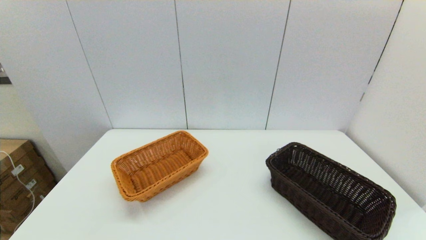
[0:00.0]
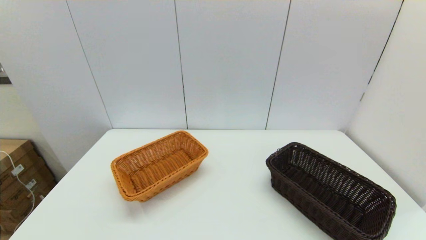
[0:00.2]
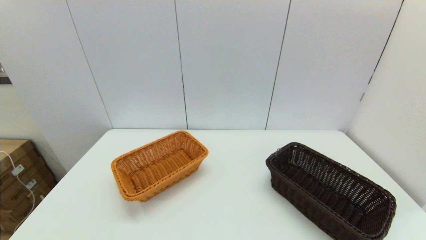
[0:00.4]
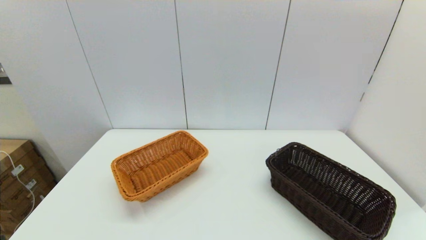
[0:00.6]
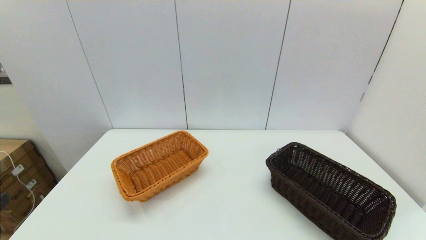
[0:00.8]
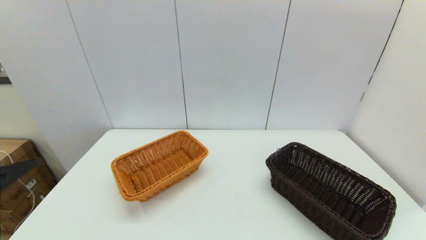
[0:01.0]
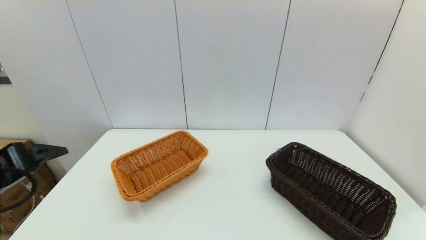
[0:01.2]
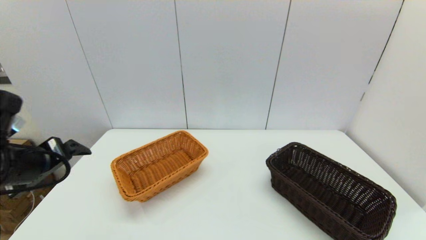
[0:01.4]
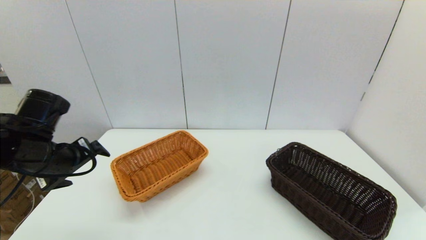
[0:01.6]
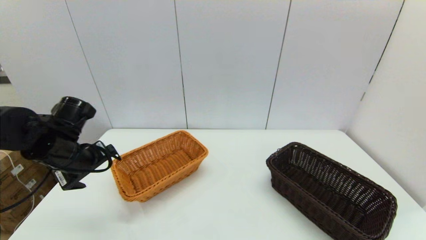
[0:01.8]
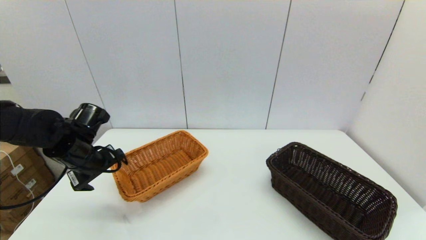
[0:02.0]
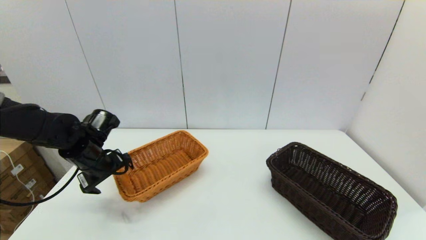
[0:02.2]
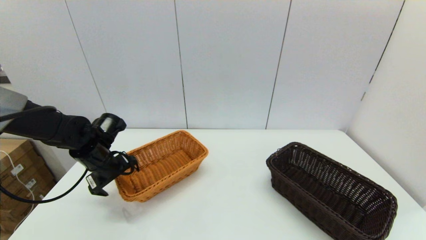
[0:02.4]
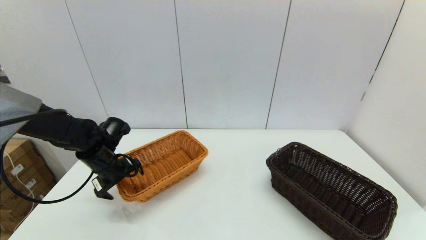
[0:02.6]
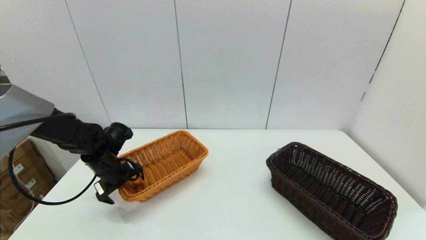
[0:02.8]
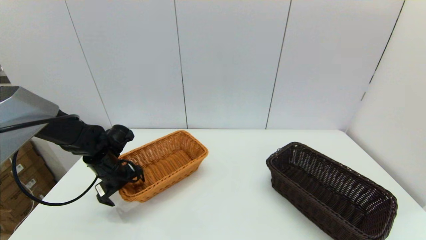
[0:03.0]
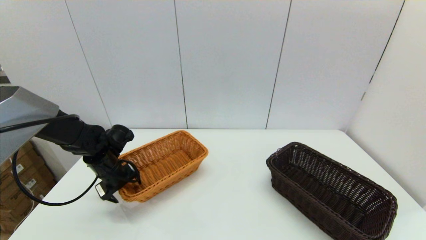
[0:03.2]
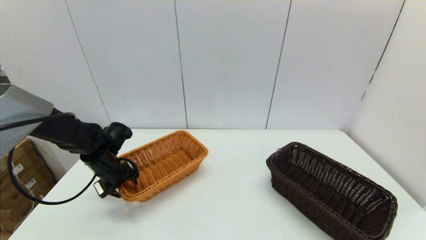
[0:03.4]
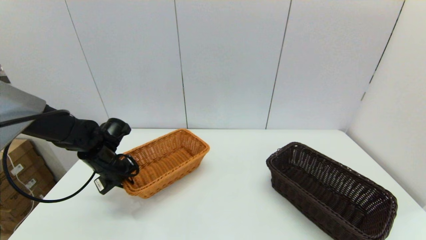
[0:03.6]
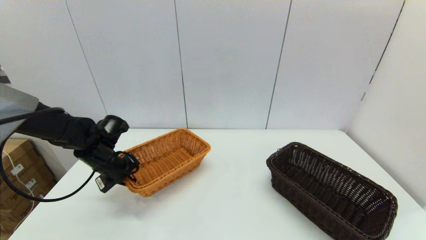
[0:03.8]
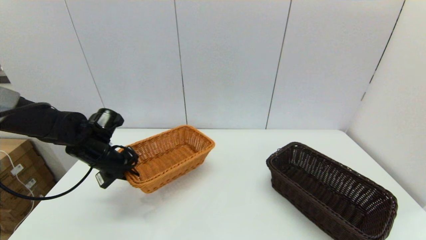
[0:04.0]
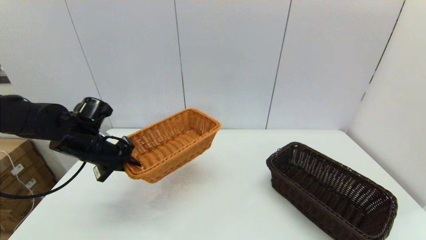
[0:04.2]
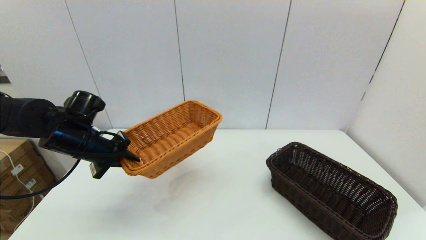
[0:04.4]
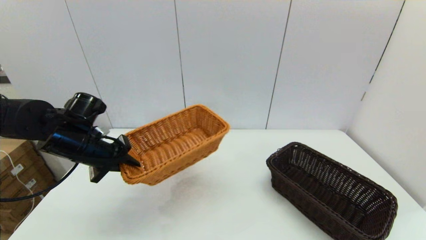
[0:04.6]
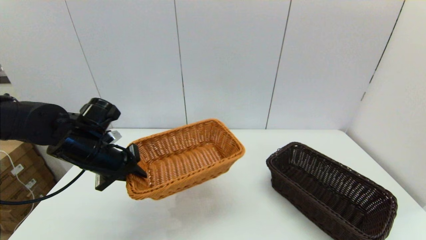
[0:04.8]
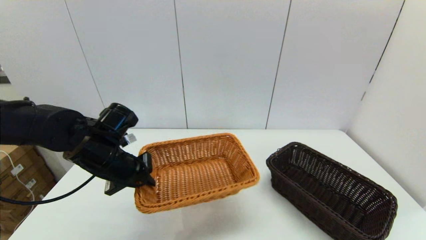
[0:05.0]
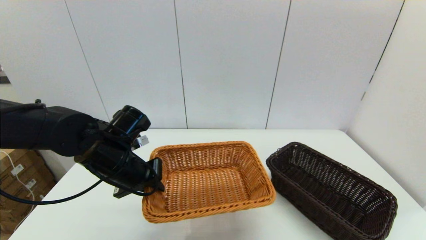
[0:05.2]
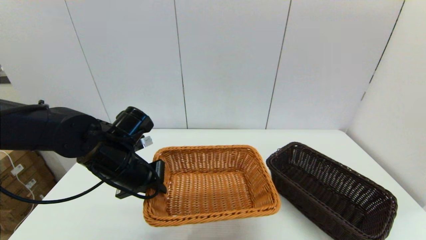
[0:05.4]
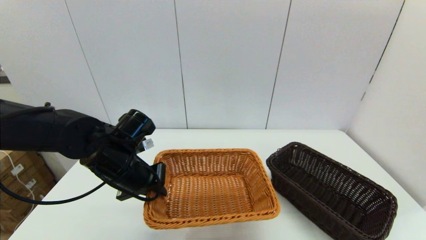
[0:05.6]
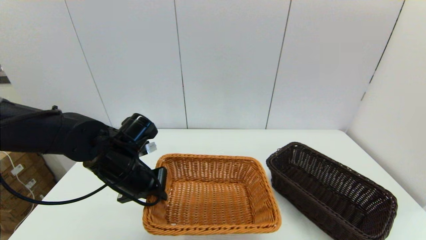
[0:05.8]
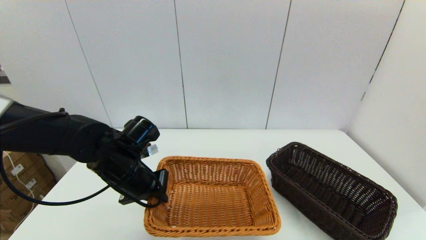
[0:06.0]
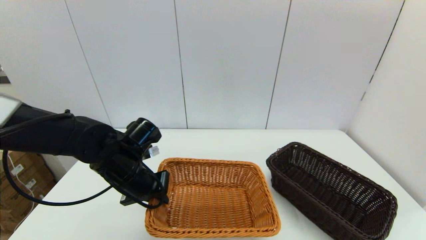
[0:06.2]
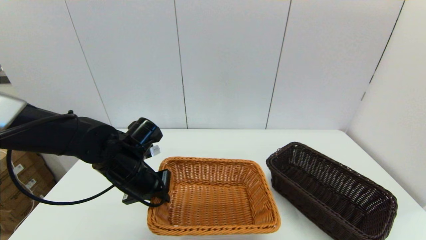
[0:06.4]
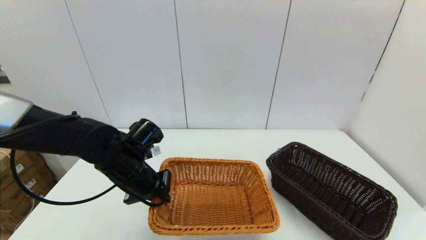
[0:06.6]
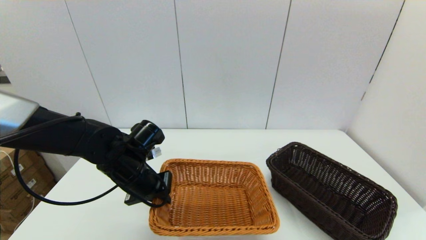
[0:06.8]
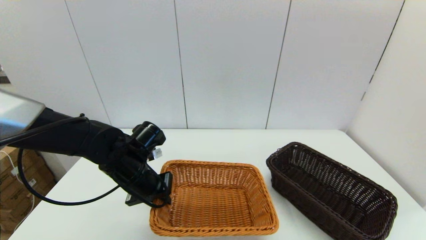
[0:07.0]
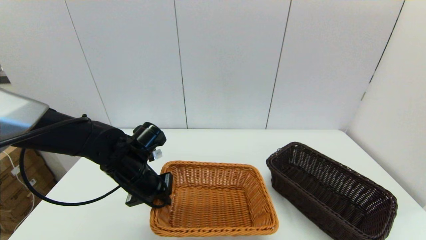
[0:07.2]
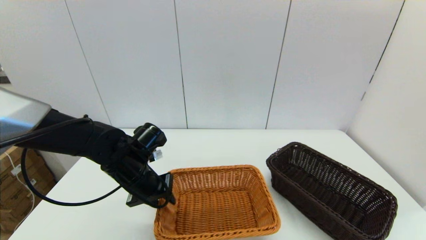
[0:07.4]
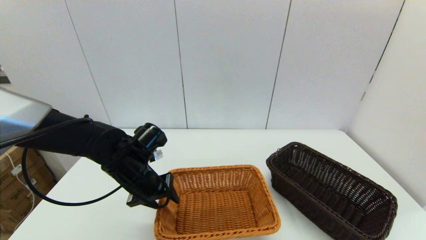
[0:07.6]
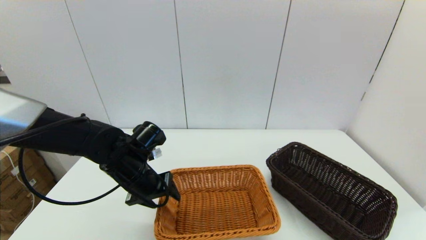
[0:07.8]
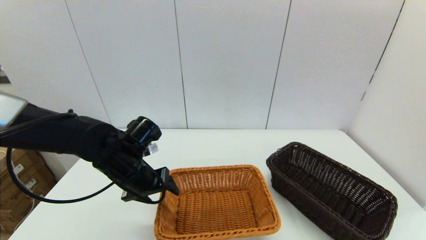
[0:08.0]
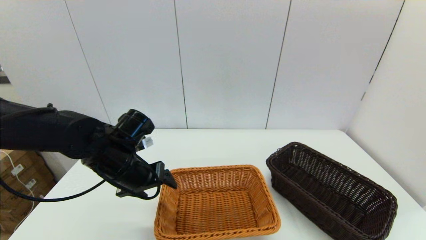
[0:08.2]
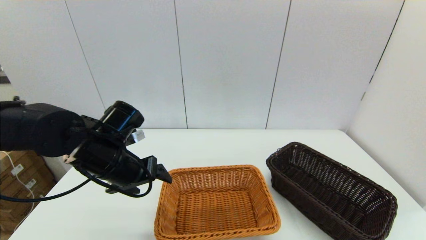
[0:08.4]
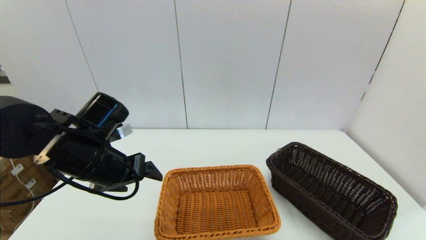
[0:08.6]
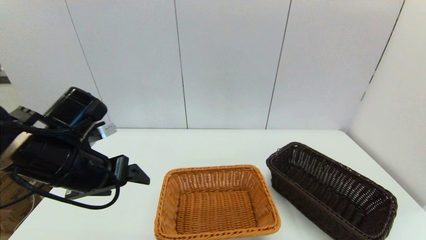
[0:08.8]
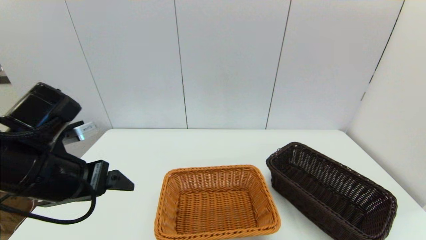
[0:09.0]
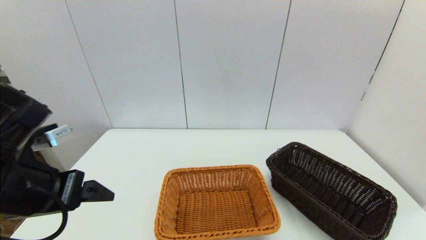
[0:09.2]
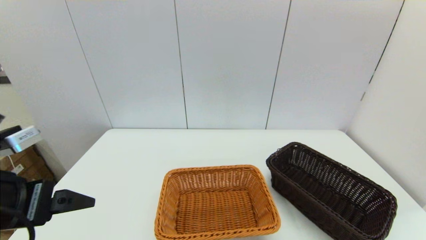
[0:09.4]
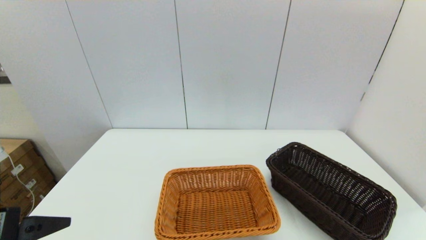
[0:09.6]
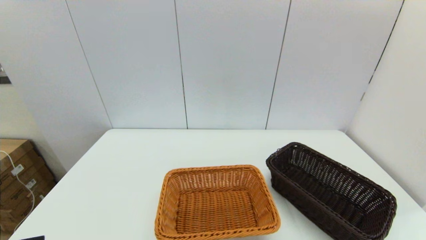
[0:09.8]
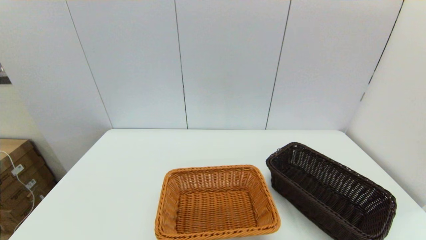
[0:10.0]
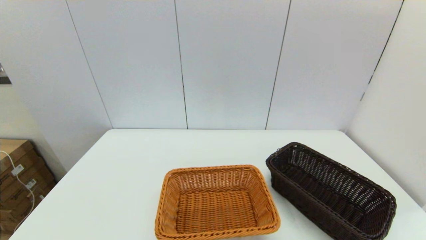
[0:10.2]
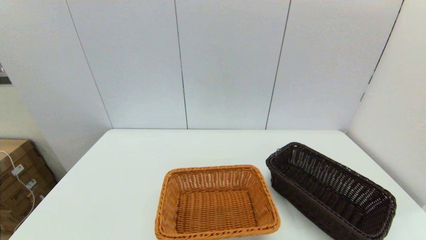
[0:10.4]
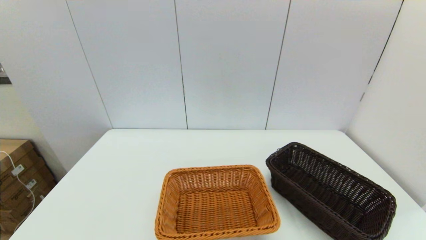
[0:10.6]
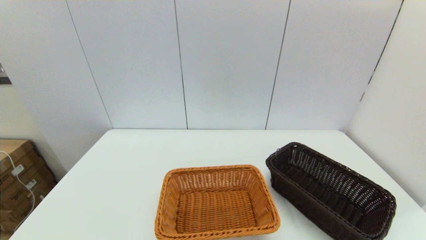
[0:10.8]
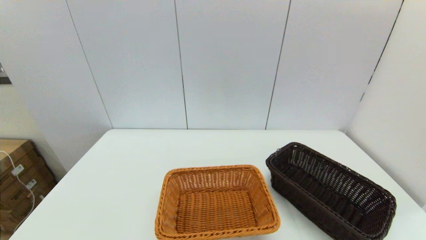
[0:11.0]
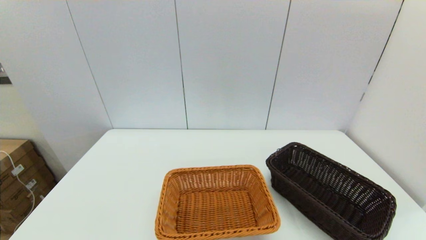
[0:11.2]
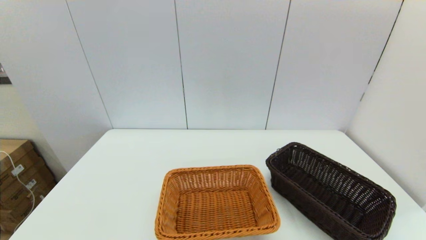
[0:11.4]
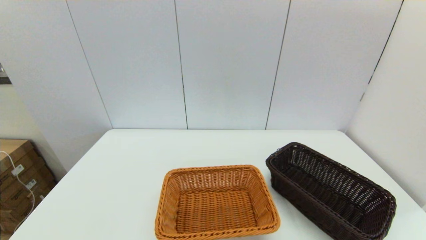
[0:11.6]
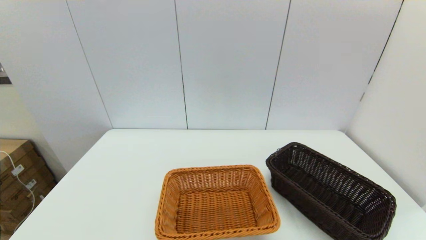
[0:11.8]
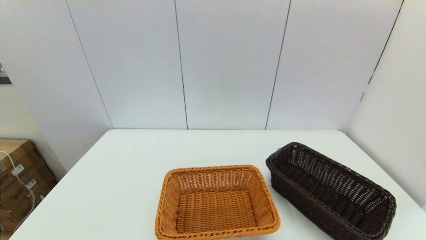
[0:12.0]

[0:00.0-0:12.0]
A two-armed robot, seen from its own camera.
Task of the whole recording: stack a basket on top of another basket.
Step, 0:00.0 to 0:03.6: Grasp the light basket with the left gripper.
Step, 0:03.8 to 0:07.8: Place the light basket on the middle of the table with the left gripper.
0:00.0 to 0:01.6: The left gripper shifts roughly 25 cm forward.
0:01.6 to 0:03.0: The left gripper shifts roughly 15 cm downward and forward.
0:03.0 to 0:04.4: The left gripper travels upward by some 10 cm, and closes.
0:04.4 to 0:06.0: The left gripper shifts approximately 10 cm to the right.
0:06.0 to 0:07.6: The left gripper opens.
0:07.6 to 0:09.0: The left gripper moves upward, backward and to the left, some 15 cm, and opens its fingers.
0:09.0 to 0:10.4: The left gripper heads backward, covering approximately 20 cm.

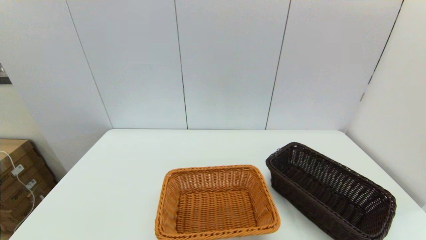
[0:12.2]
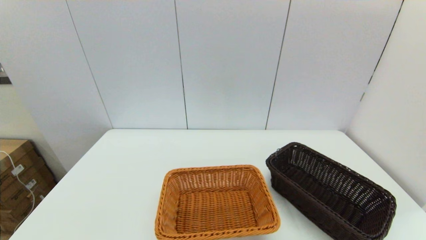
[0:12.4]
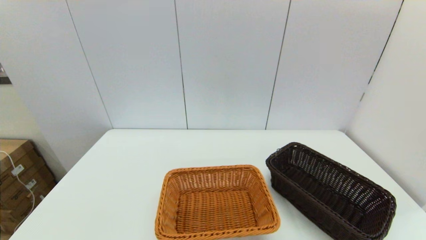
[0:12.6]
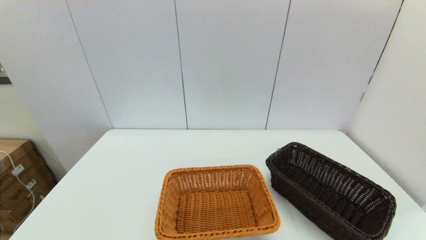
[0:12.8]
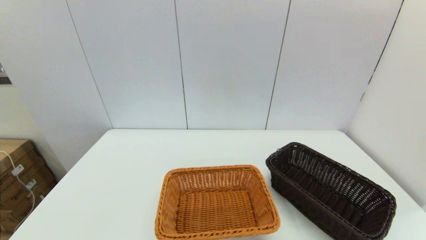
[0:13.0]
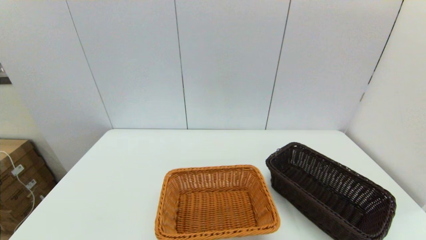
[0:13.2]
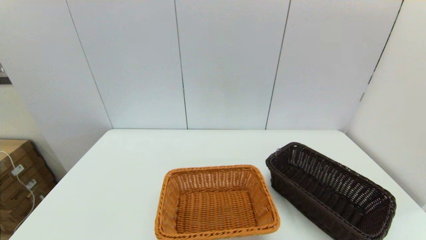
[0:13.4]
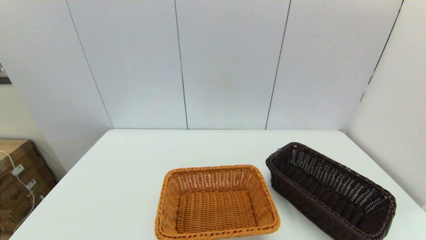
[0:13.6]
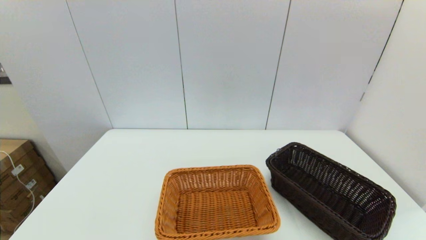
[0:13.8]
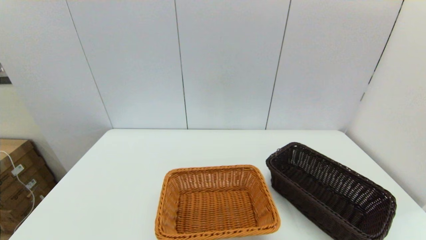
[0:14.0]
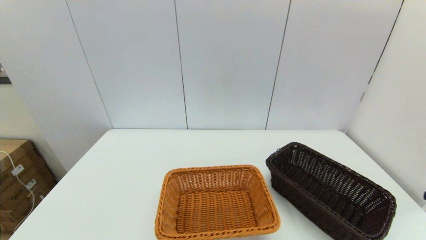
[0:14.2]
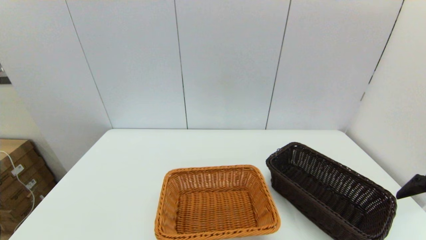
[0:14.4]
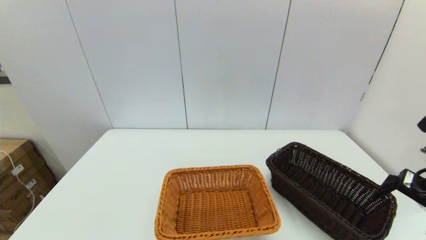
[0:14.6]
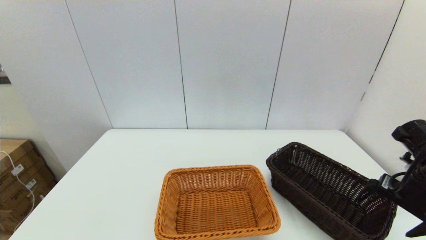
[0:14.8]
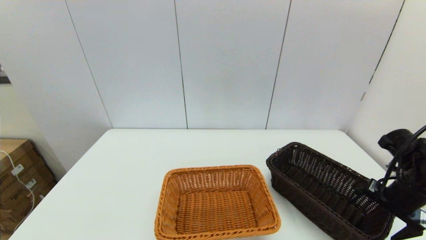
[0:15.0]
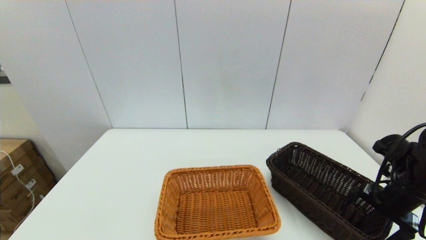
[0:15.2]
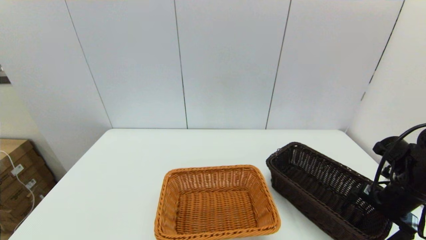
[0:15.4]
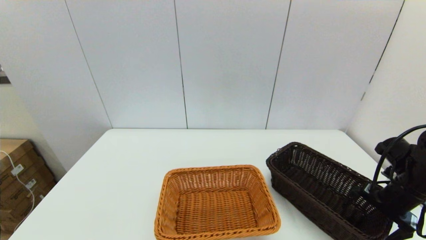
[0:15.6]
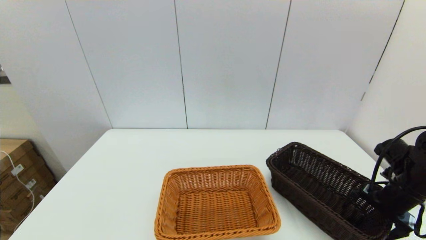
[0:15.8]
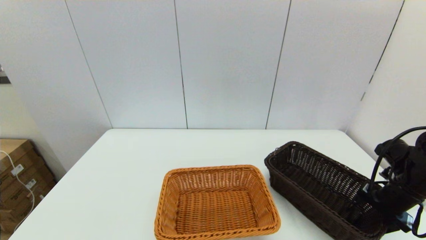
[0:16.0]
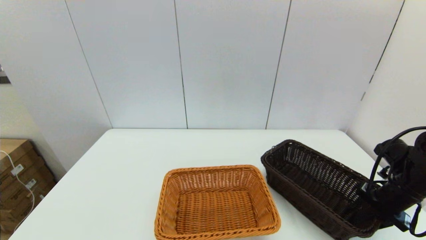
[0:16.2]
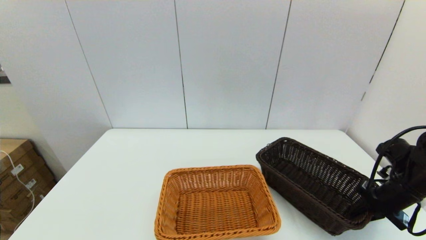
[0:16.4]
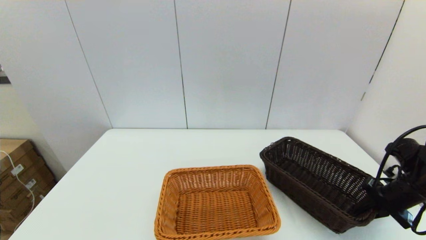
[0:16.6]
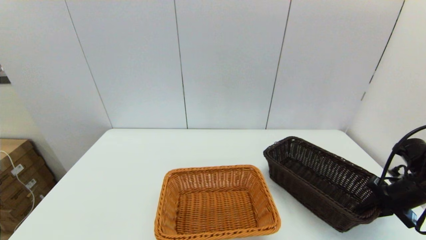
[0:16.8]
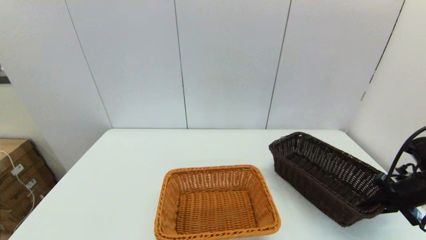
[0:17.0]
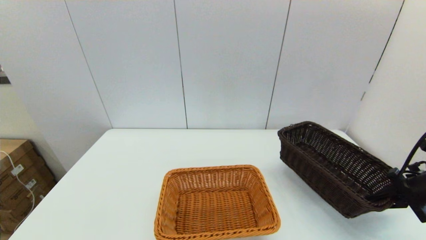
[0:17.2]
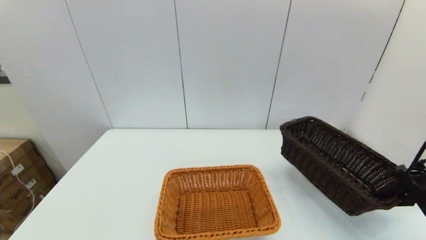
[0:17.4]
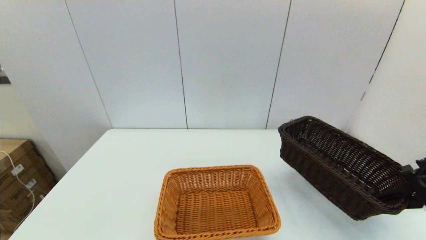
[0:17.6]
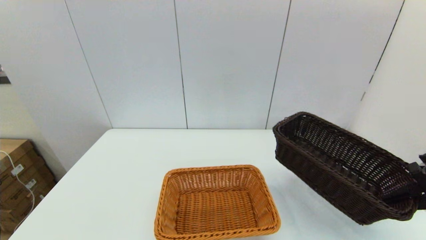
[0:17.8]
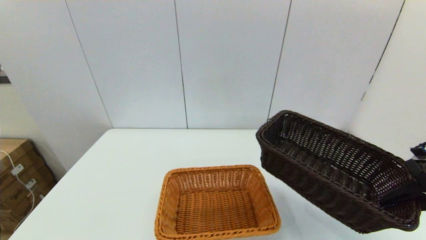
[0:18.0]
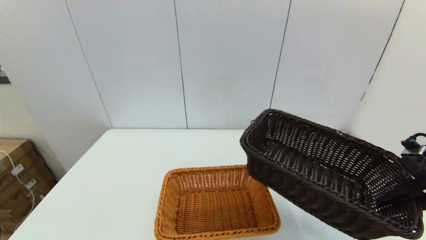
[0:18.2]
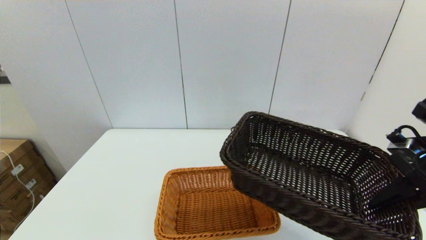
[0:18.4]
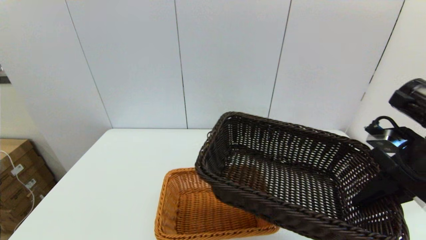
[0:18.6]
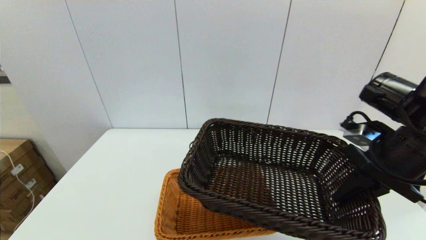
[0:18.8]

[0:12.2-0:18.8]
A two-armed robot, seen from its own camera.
Task of the whole recording: stack a basket on top of another basket.
Step, 0:12.2 to 0:16.2: Grasp the dark basket with the right gripper.
0:13.8 to 0:15.4: The right gripper is displaced forward and downward by approximately 25 cm.
0:15.4 to 0:17.2: The right gripper goes some 5 cm to the right, and closes up.
0:17.2 to 0:18.8: The right gripper heads to the left and upward, covering approximately 20 cm.
